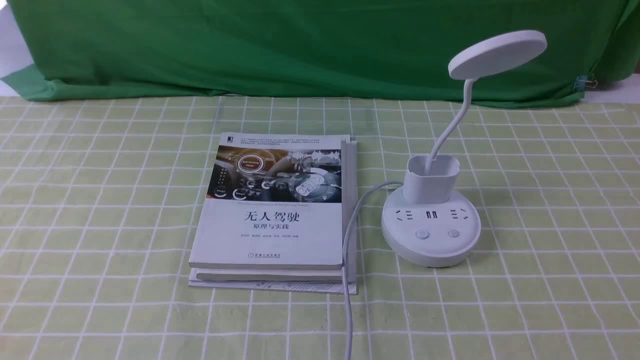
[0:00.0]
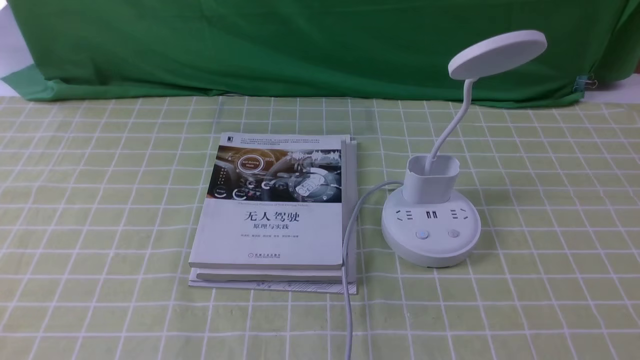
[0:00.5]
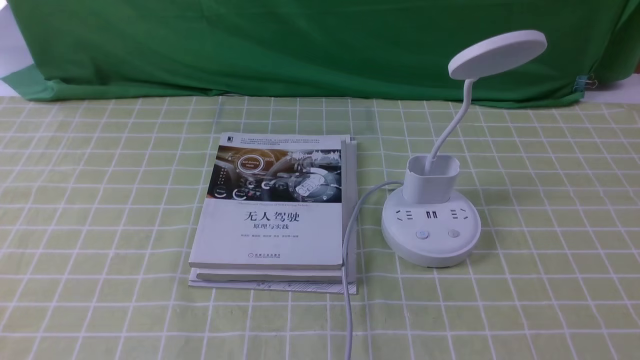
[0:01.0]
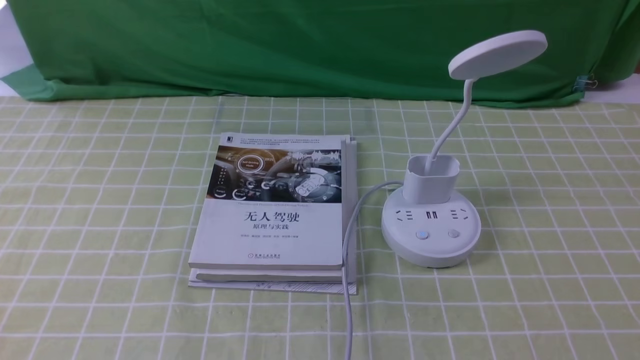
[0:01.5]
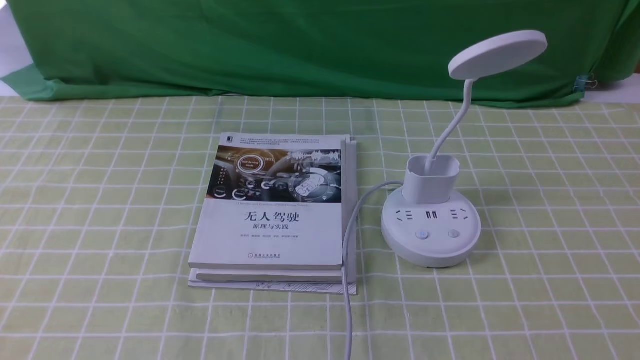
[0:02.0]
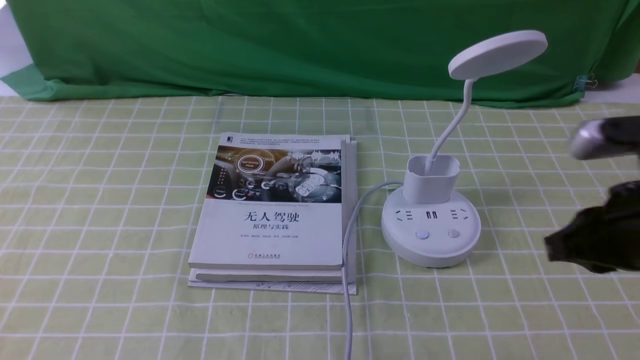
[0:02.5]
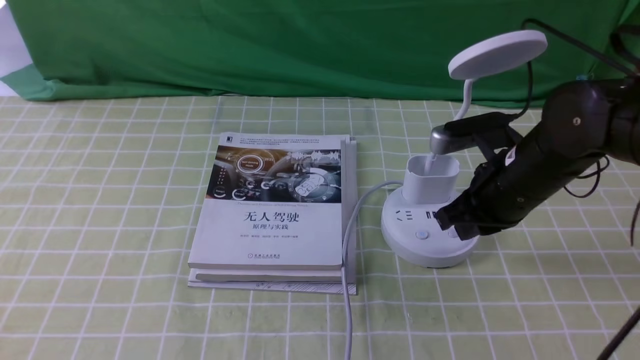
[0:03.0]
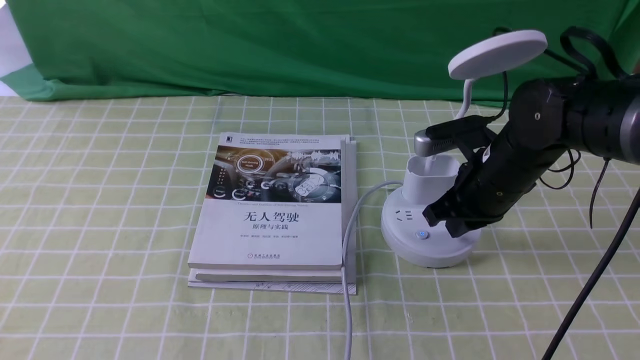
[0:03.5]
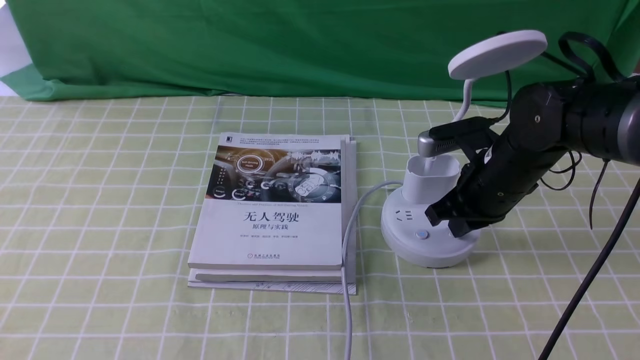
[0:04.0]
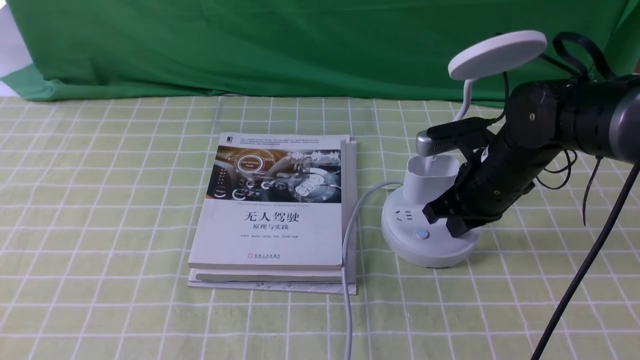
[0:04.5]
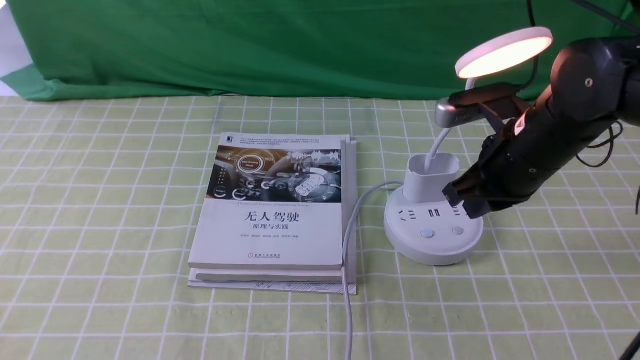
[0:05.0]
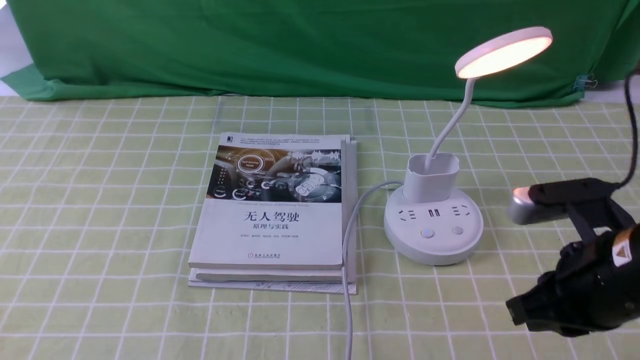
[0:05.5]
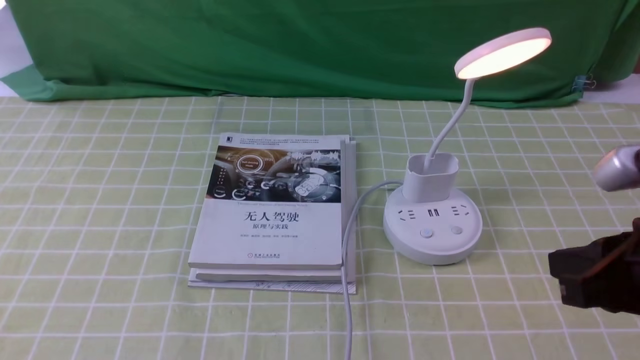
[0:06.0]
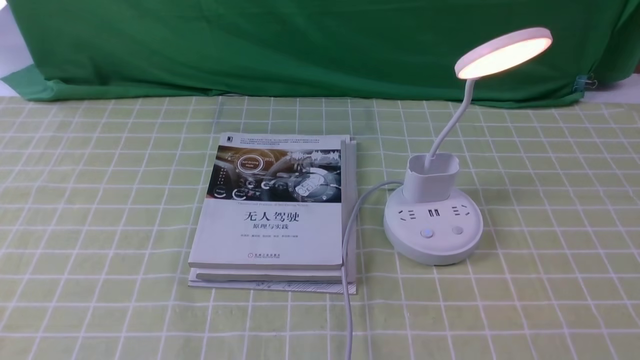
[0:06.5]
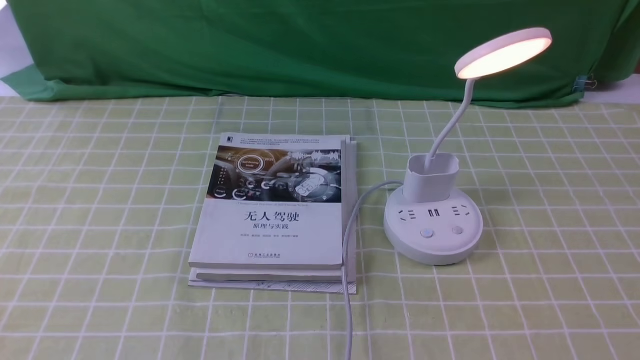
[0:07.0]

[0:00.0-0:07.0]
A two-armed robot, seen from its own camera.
Step, 0:00.0 to 0:04.5: use the right arm to press the button switch on the lamp holder.
0:02.0 to 0:03.5: The right gripper moves forward and to the left, approximately 30 cm, and closes up.
0:03.5 to 0:05.0: The right gripper ends up about 5 cm from where it was.
0:05.0 to 0:07.0: The right gripper moves backward and to the right, some 30 cm.
